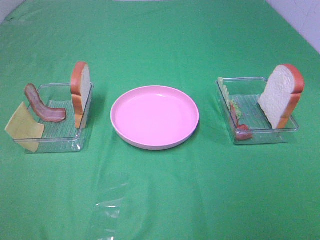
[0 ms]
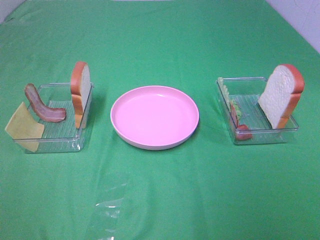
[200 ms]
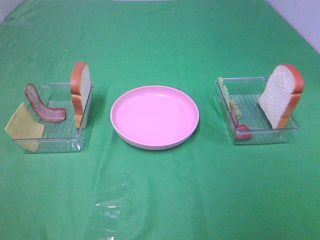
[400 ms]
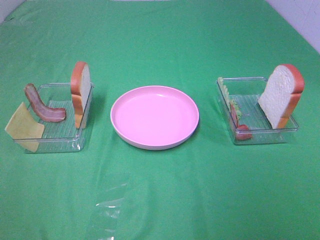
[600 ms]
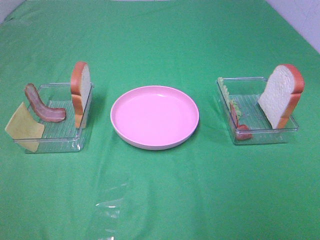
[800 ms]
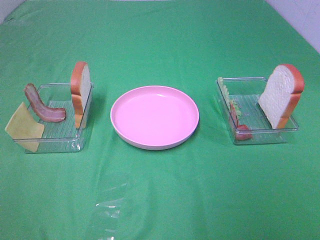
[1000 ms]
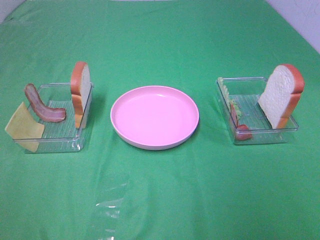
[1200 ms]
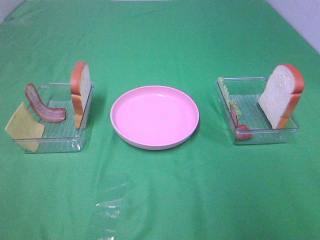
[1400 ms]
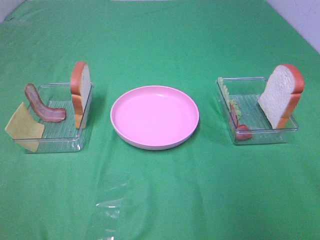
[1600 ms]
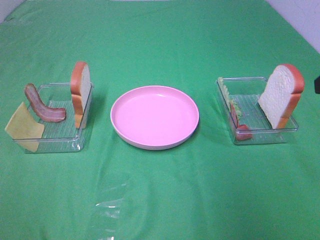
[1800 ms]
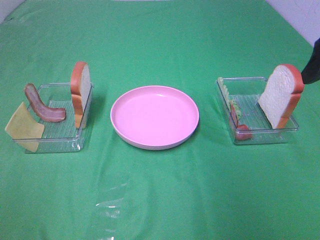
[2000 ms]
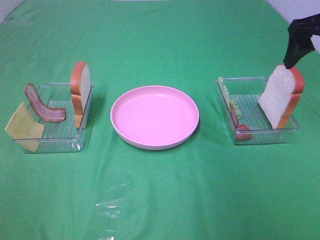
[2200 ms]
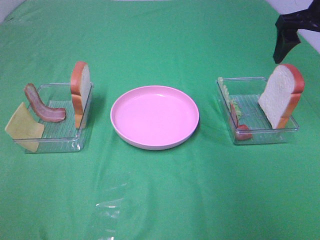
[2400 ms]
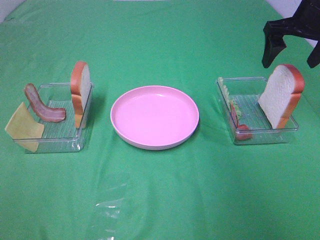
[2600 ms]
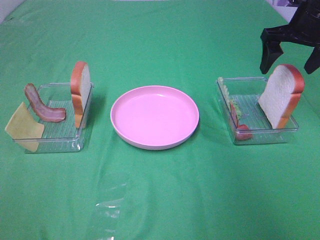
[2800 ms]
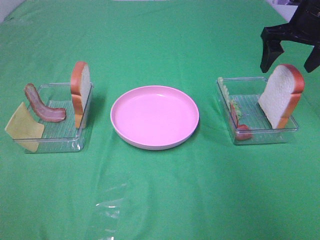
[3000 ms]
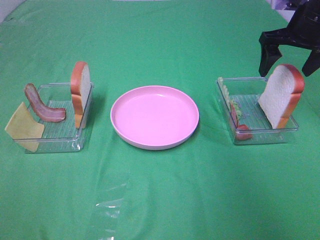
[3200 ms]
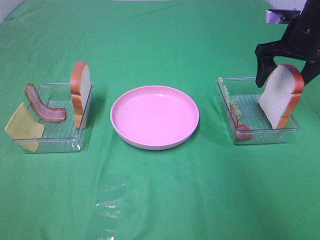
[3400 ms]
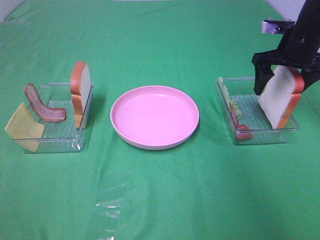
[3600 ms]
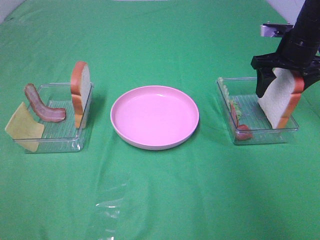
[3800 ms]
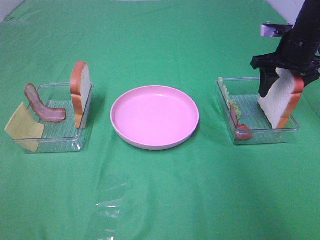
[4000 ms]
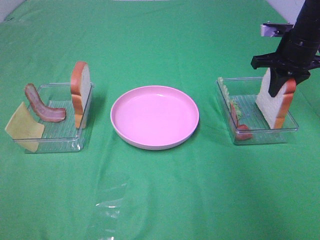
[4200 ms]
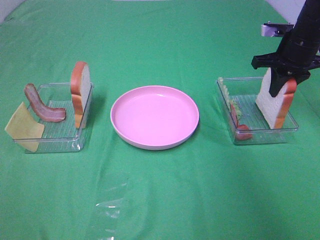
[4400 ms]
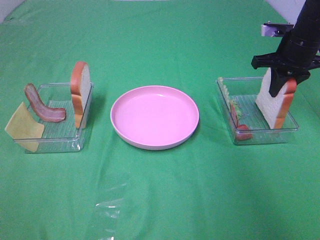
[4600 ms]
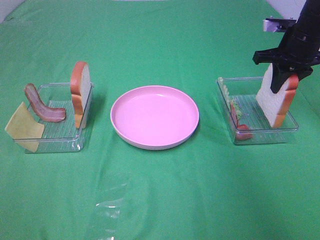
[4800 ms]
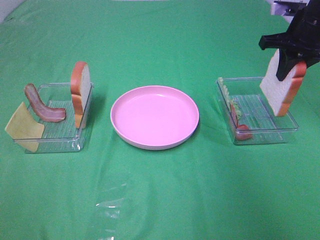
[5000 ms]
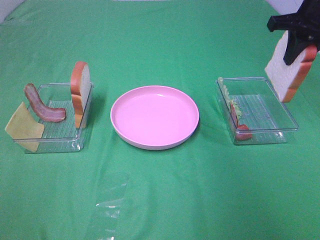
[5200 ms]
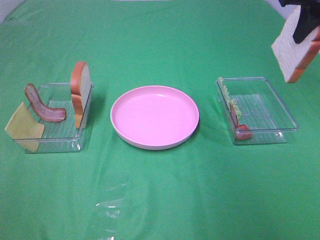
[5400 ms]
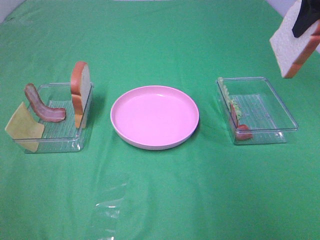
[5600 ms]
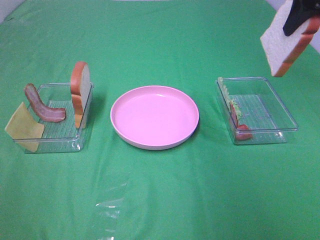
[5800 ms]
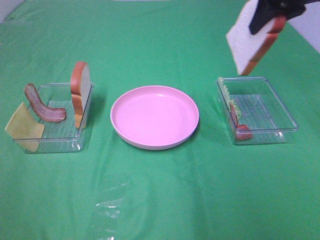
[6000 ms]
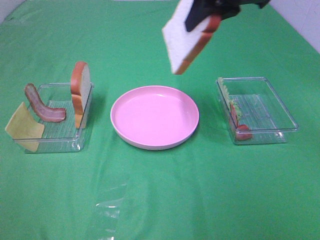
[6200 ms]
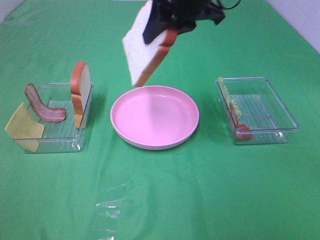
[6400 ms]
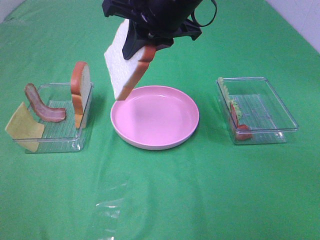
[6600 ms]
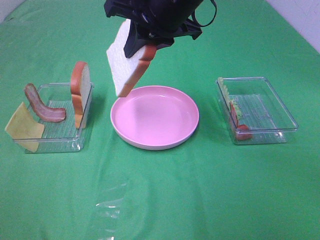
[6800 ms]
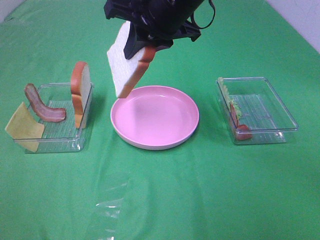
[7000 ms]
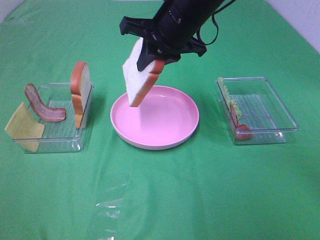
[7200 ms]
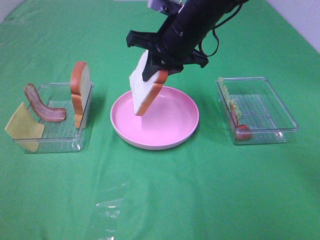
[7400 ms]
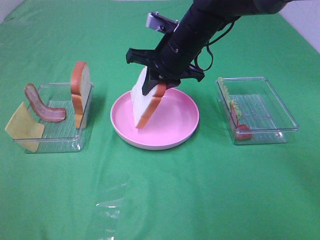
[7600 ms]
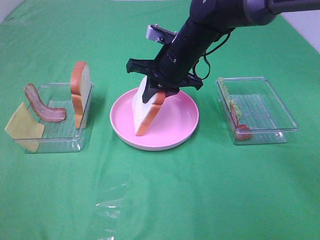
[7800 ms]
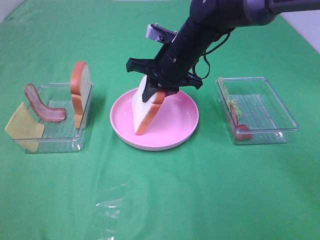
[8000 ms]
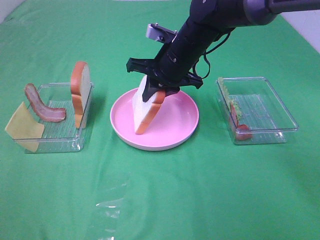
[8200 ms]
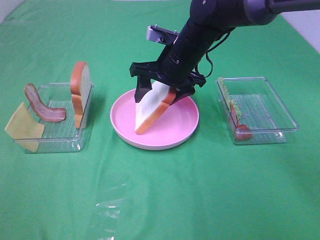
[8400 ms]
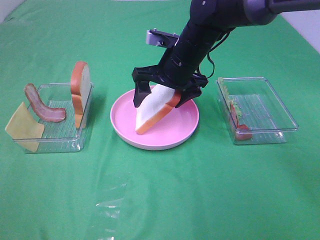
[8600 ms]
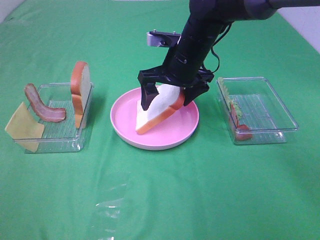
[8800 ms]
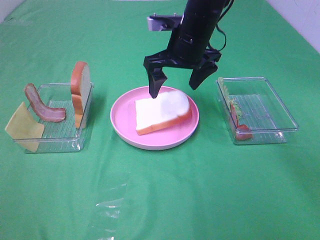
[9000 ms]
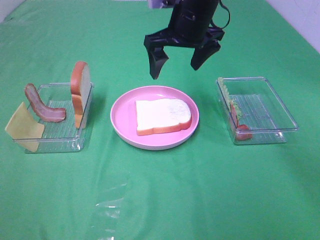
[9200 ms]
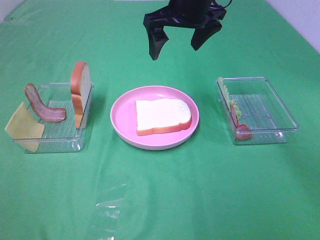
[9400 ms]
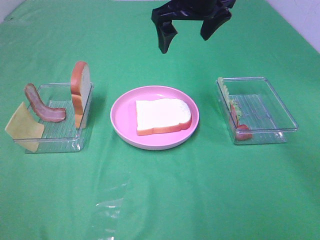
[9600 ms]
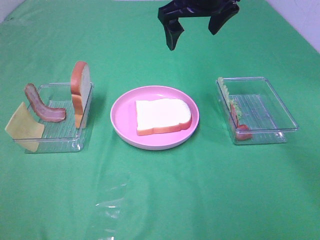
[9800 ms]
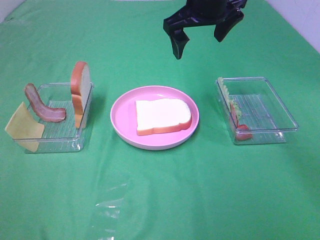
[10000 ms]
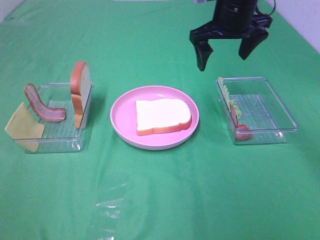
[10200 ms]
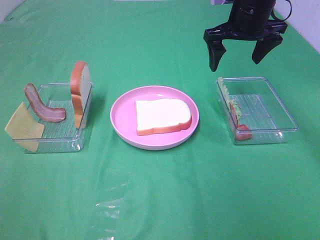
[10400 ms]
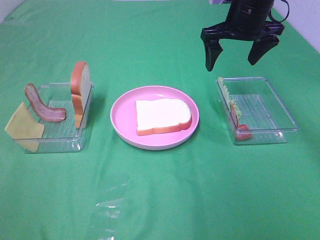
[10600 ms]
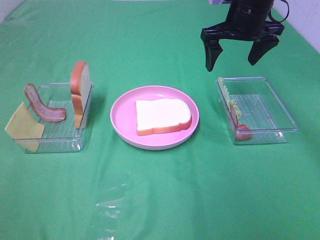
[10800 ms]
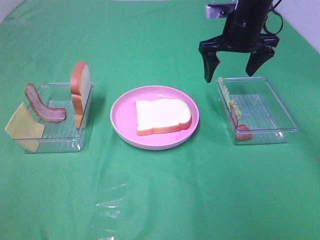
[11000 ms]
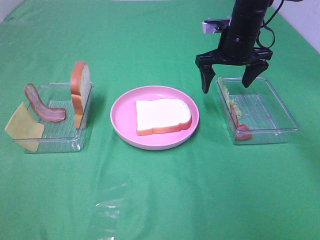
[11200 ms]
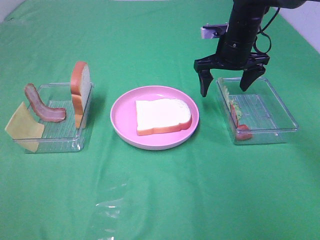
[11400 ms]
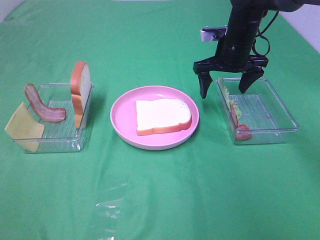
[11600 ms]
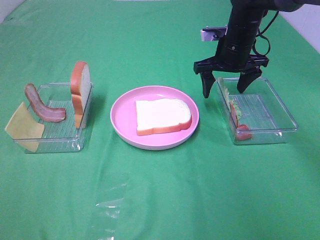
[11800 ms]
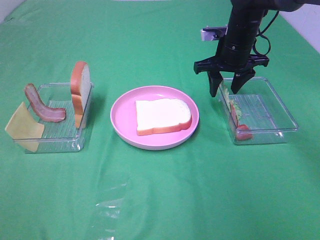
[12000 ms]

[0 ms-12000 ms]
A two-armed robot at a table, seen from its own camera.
Task of the whole recording: Make sandwiches.
Step, 0 ms to 4200 ms: Right hand:grab the bread slice.
Step, 4400 ms to 9000 ms: Right hand:place the bread slice on the plate.
1600 ms to 3000 ms: The right gripper goes roughly 25 cm forward.
3000 ms to 4400 ms: The right gripper heads downward, covering roughly 5 cm, and closes its fingers.
4400 ms to 6000 ms: The right gripper heads upward and to the left, covering approximately 15 cm.
6000 ms to 7600 ms: The right gripper heads to the left and downward, covering approximately 20 cm.
7600 ms to 9000 ms: The right gripper opens up.
9000 ms to 10400 ms: The right gripper heads to the right, covering roughly 10 cm.
10400 ms to 12000 ms: The right gripper goes about 10 cm downward, and closes up.

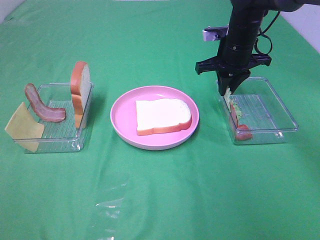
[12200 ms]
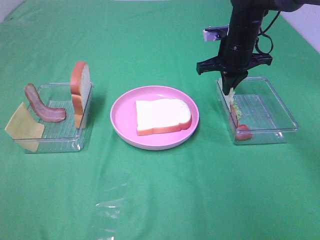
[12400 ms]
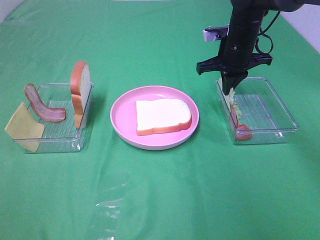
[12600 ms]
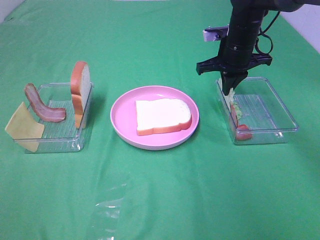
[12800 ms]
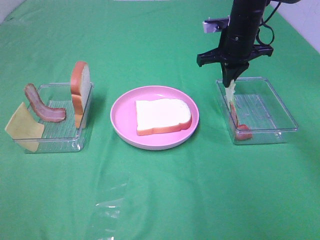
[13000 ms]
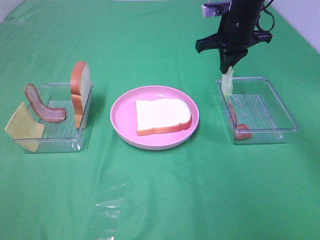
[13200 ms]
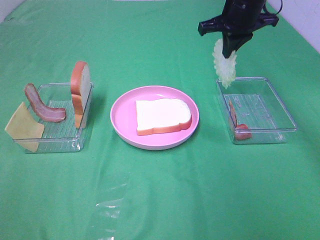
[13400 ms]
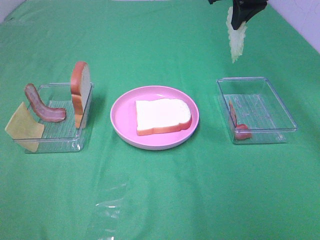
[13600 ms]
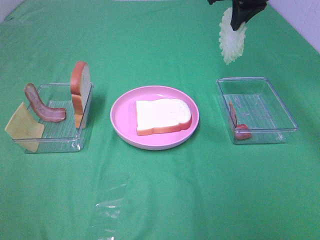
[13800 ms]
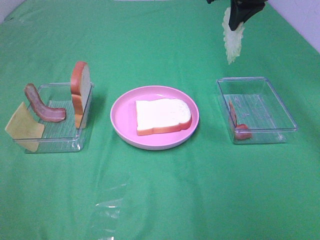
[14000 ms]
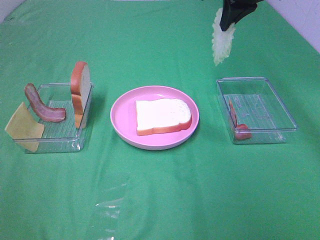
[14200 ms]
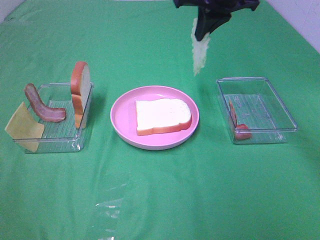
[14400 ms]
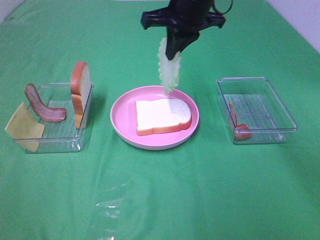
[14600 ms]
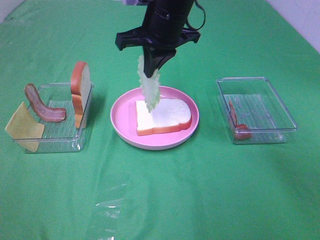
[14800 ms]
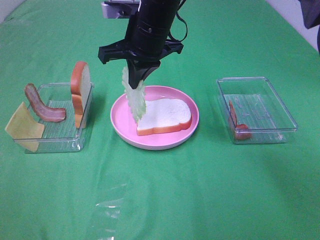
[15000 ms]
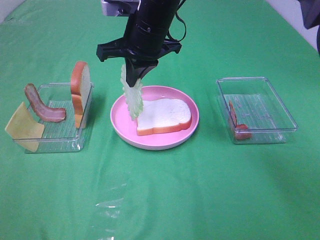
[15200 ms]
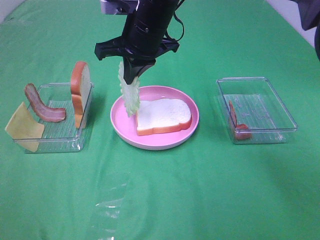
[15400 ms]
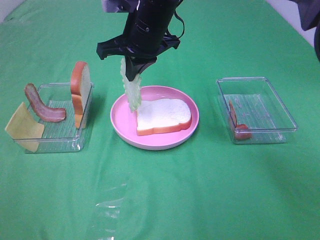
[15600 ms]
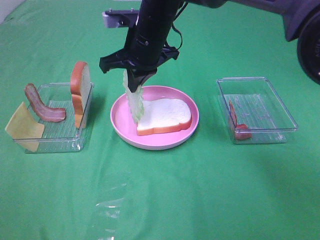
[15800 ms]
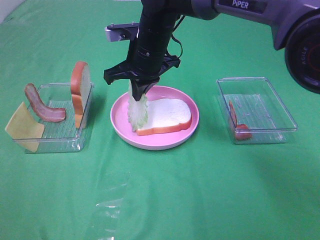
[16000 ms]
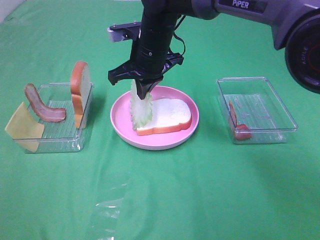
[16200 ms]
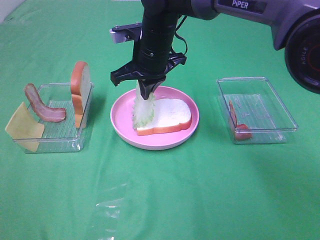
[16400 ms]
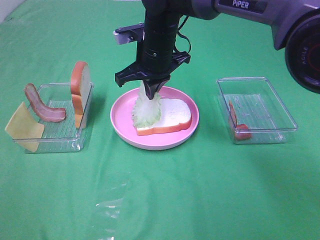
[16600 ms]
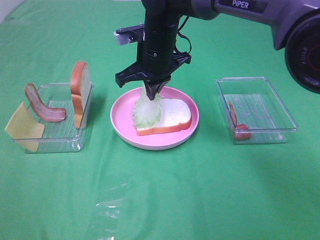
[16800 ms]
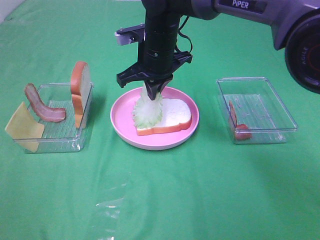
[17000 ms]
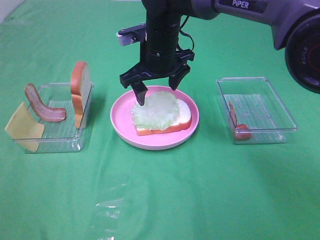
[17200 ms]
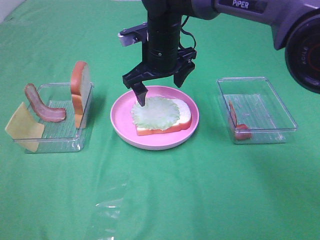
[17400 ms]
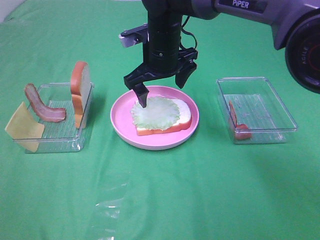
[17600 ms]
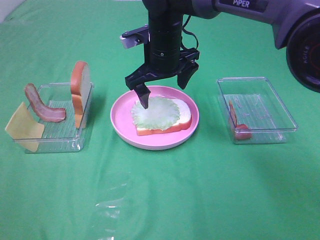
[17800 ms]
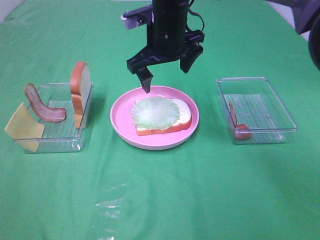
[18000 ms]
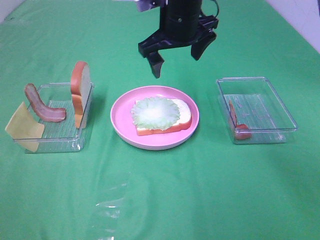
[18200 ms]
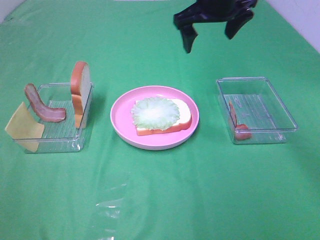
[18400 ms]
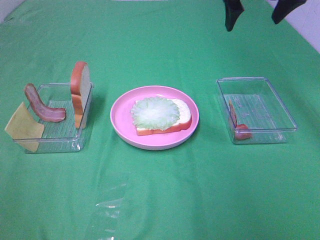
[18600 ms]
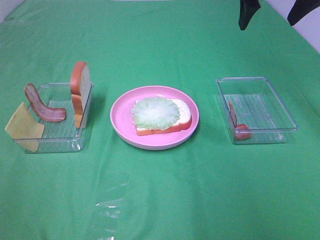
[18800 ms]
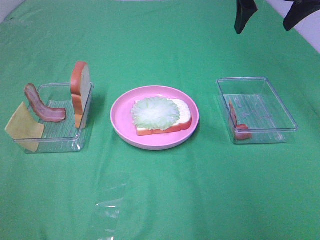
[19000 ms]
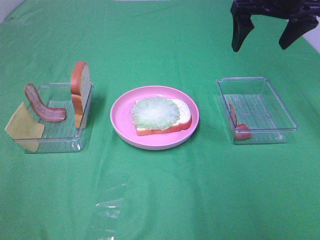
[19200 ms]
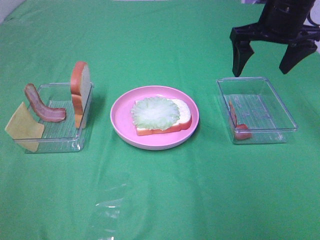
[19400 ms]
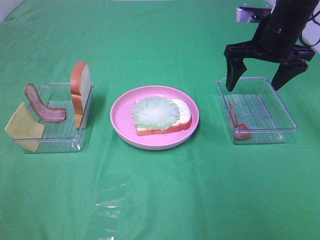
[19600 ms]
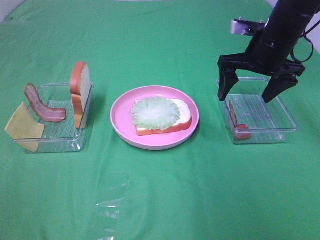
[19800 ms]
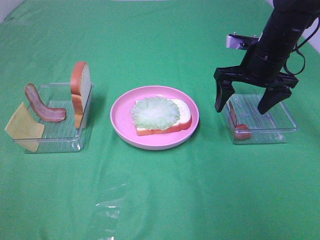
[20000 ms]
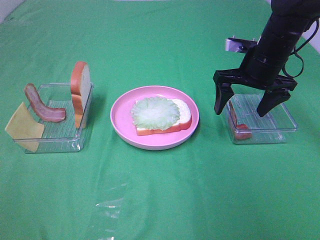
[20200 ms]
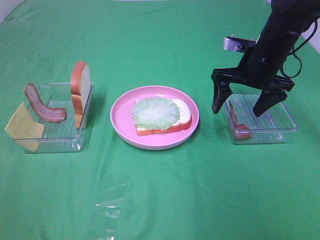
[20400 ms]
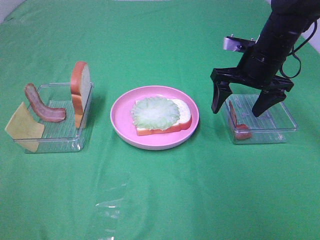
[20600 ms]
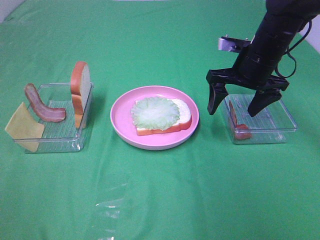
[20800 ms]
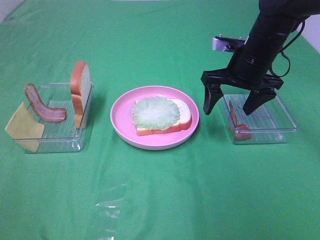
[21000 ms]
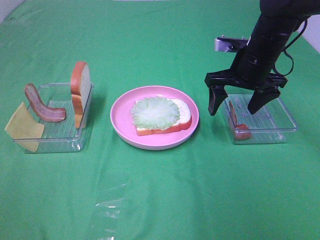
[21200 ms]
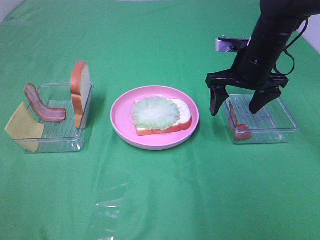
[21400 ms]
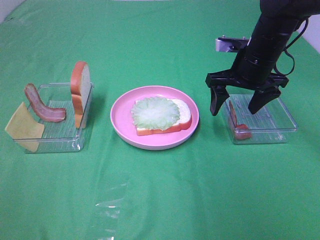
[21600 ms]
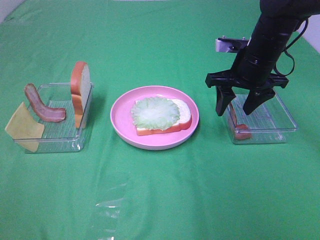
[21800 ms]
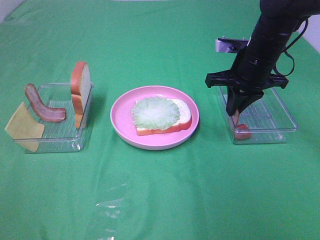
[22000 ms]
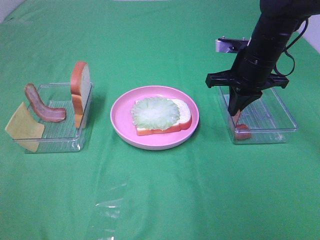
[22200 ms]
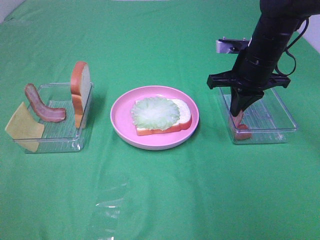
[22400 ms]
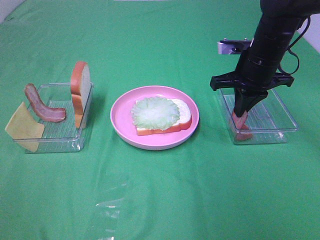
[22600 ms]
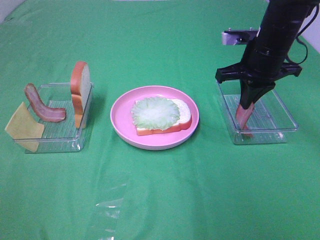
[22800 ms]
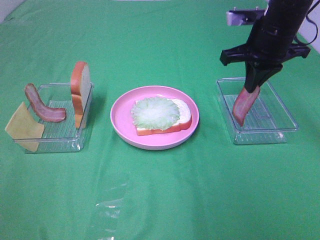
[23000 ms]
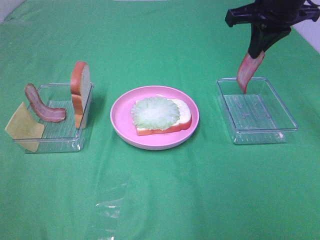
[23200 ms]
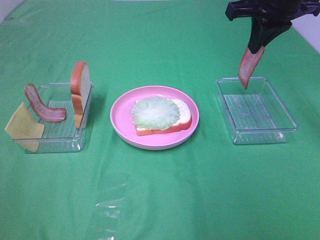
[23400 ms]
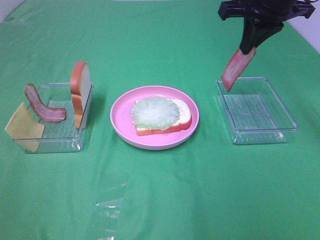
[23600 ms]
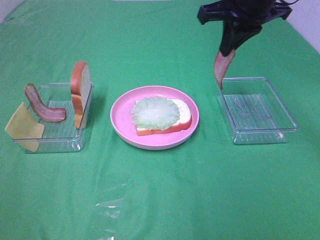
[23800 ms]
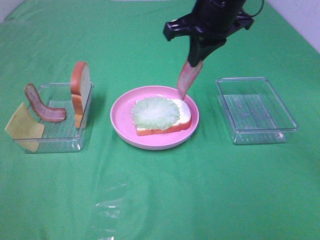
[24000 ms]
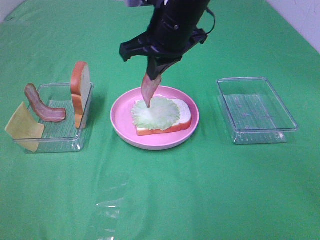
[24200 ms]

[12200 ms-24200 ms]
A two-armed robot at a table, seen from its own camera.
Task of the whole recording: Make sandwiches.
Step, 13000 ms to 17600 ms: Right hand:place the lettuce slice on the bread slice.
Step, 17800 ms to 22400 ms: Right hand:grab the bacon.
12200 ms to 13800 ms: The right gripper is displaced upward by roughly 15 cm.
13800 ms to 15200 ms: The right gripper is displaced to the left and downward by approximately 20 cm.
15200 ms to 16600 ms: The right gripper ends up approximately 5 cm from where it was.
16600 ms to 18200 ms: The right gripper heads upward and to the right, covering about 10 cm, and opens.
18200 ms to 19800 ms: The right gripper moves to the right, some 15 cm.
19800 ms to 21200 ms: The grippers move only a little.
21200 ms to 22600 ms: The right gripper closes.
22600 ms to 24200 ms: The right gripper travels to the left and upward by some 20 cm.
